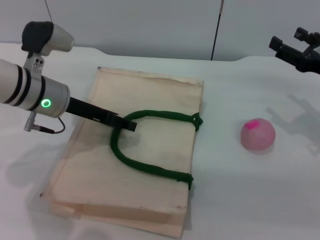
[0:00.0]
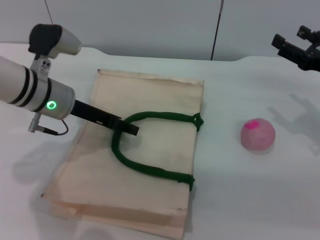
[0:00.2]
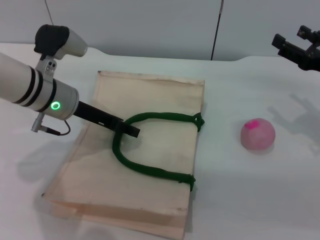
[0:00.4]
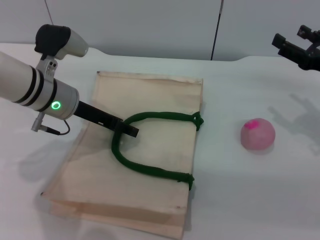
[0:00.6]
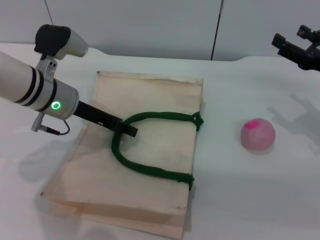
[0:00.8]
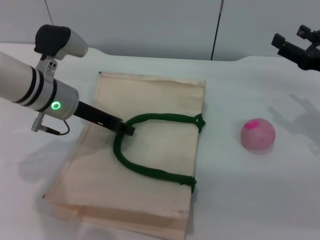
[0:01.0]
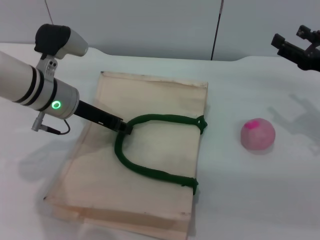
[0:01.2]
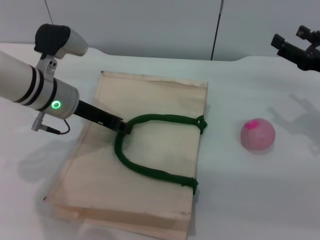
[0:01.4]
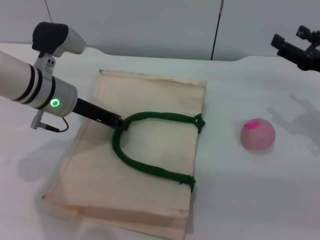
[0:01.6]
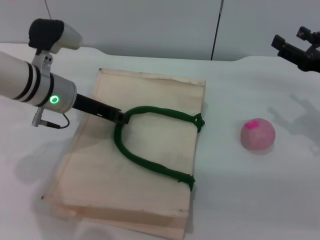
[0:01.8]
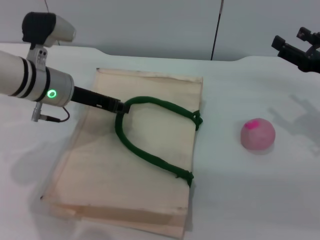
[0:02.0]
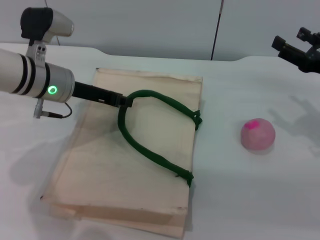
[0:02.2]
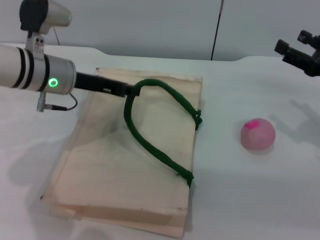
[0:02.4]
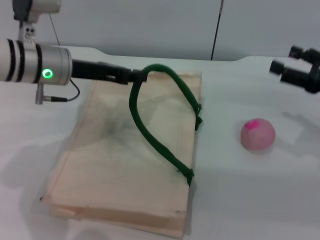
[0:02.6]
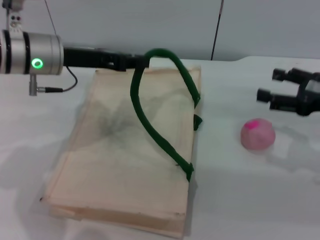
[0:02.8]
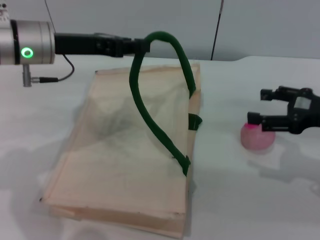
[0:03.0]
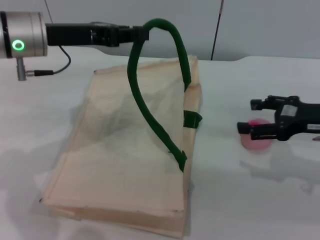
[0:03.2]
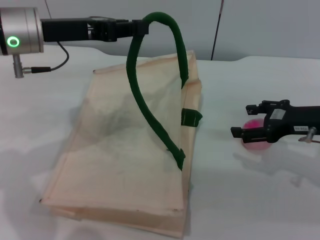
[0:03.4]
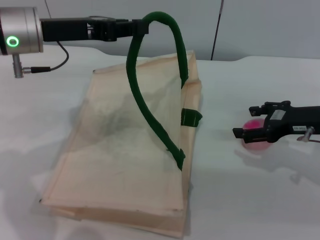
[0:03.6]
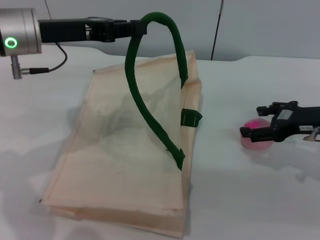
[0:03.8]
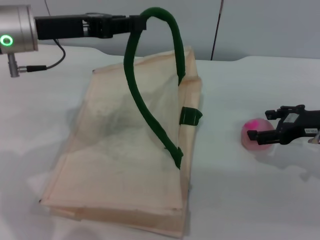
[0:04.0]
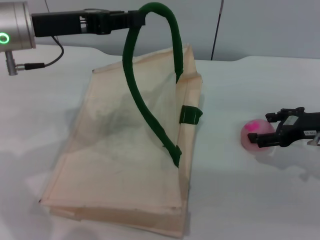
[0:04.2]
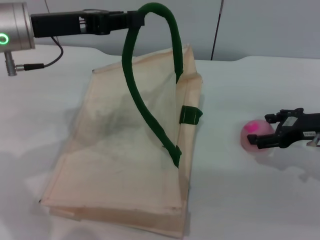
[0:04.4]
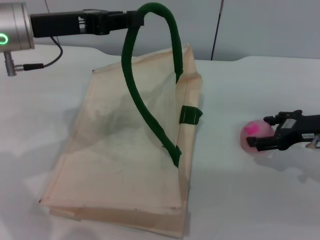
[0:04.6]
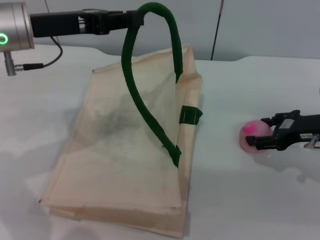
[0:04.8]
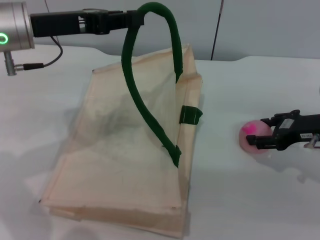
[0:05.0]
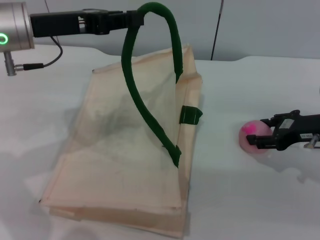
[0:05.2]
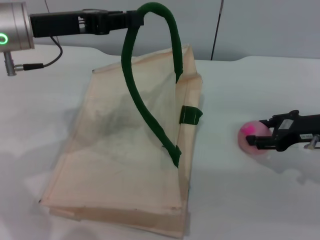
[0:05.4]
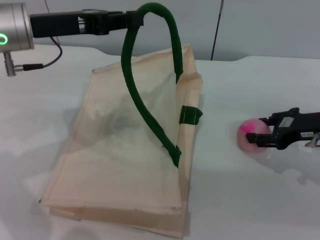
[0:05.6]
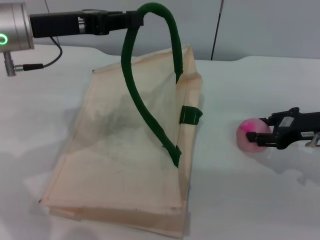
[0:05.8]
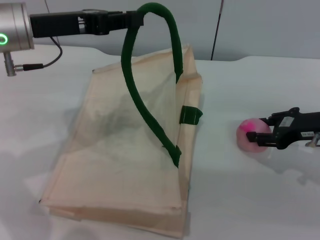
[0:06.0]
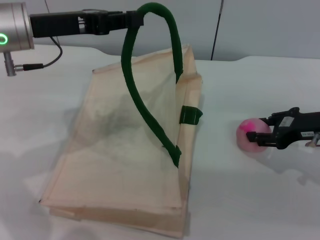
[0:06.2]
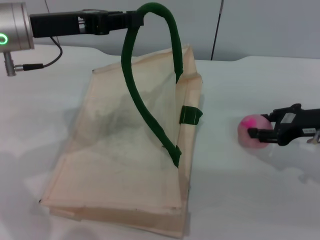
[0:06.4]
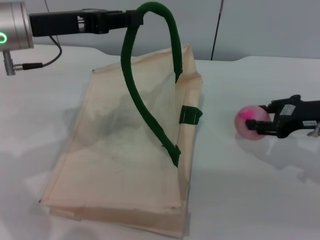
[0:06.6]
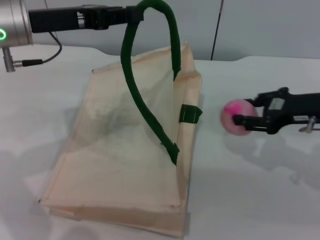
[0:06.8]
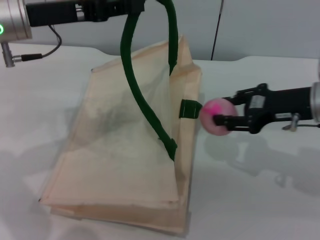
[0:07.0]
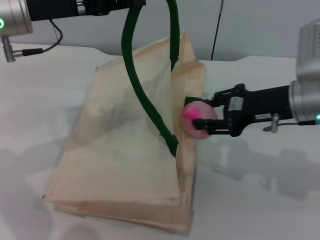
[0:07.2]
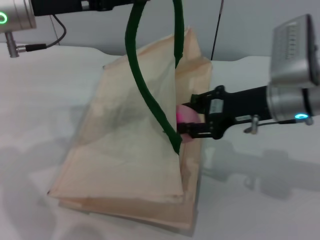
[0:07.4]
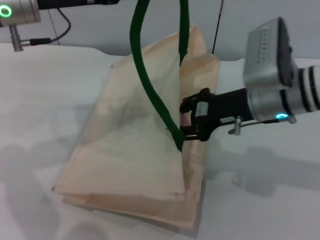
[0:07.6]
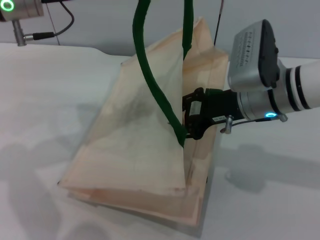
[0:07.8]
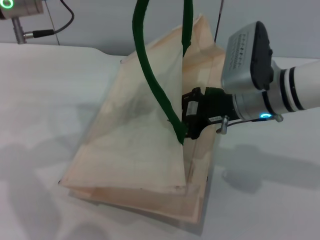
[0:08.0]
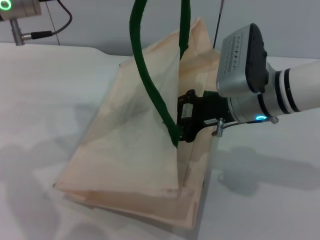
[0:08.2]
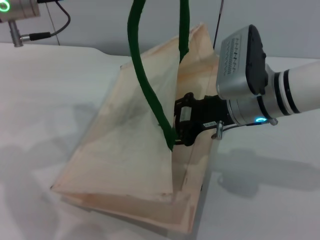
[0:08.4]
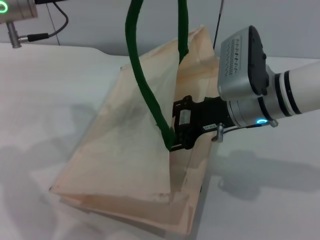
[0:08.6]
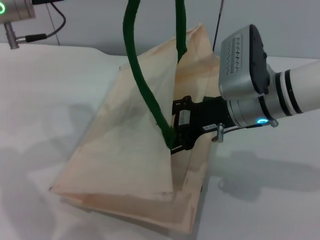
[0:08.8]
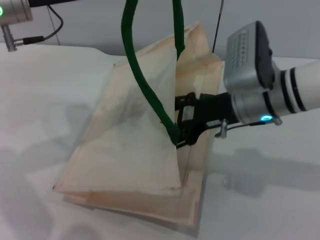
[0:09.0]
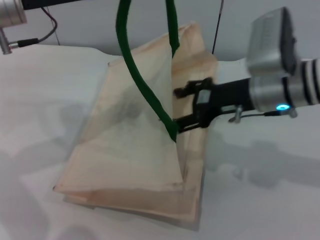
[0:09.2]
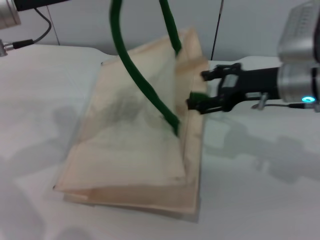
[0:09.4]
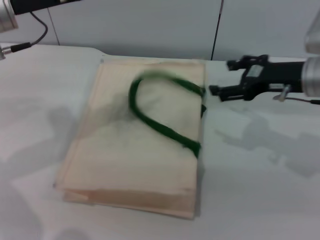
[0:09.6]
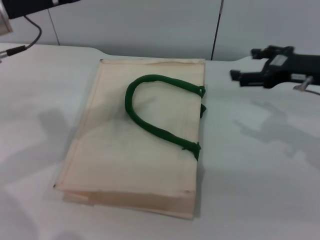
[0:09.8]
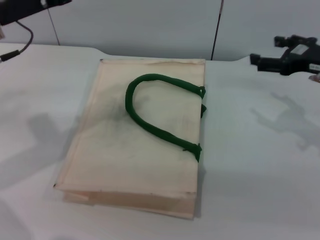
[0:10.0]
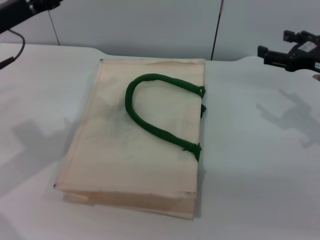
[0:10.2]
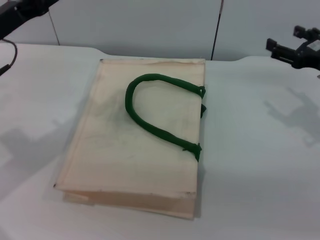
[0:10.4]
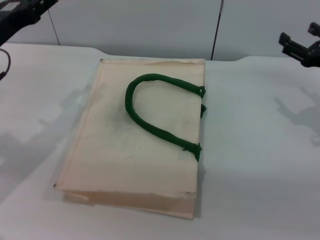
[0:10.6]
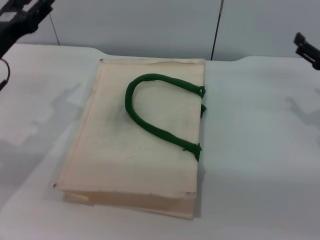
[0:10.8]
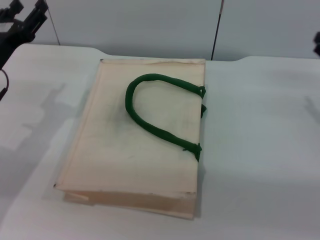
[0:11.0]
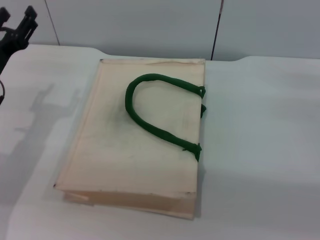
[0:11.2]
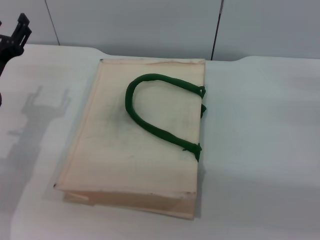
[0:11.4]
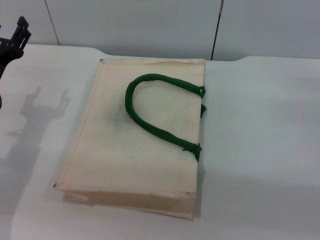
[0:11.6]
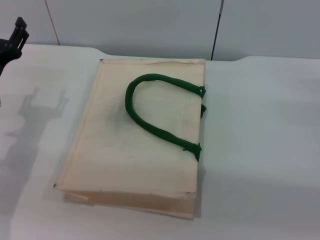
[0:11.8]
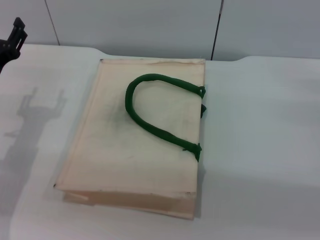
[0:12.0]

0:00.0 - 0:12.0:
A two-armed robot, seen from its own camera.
Task of the whole recording: pick up the peach from the table and place it in the white handbag.
Step, 0:00.0 - 0:02.4: Lift the woven bag with the left gripper to open it.
Step, 0:02.6 - 0:06.8: Pick up the peach with the right gripper.
Step, 0:07.0 - 0:09.4: Place the peach into the woven bag with the right gripper.
Step, 0:09.6 - 0:10.8: Lower the woven bag with the left gripper to close it.
0:00.0 - 0:01.6: The left gripper closes up.
0:01.6 - 0:03.0: The left gripper is displaced upward by approximately 10 cm.
0:04.4 - 0:06.0: The right gripper closes its fingers.
0:06.0 - 0:07.6: The right gripper goes roughly 15 cm to the left.
0:07.6 - 0:09.0: The right gripper opens up.
0:09.0 - 0:10.4: The left gripper is displaced downward and to the left by roughly 10 cm, and opens its fingers. The right gripper travels to the right by roughly 15 cm.
0:10.4 - 0:12.0: The right gripper is displaced downward by roughly 5 cm, while the left gripper goes about 10 cm downward.

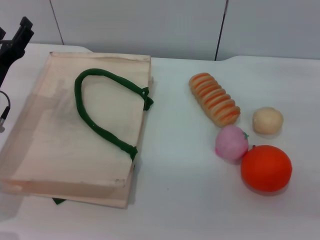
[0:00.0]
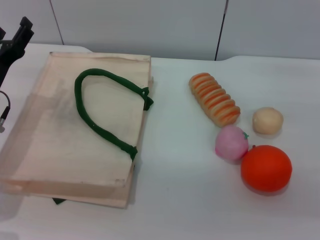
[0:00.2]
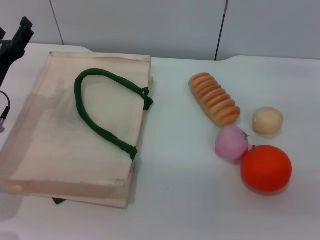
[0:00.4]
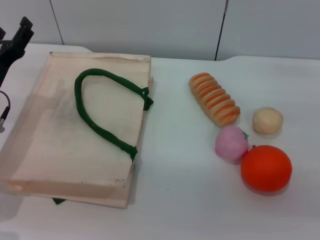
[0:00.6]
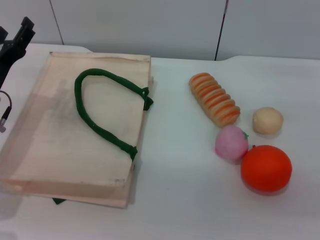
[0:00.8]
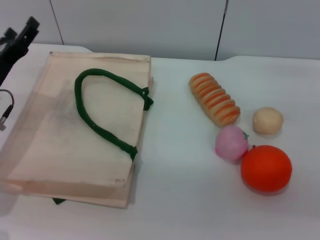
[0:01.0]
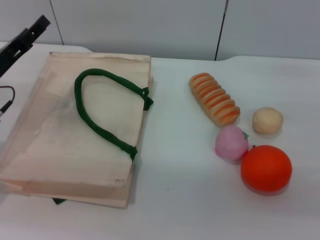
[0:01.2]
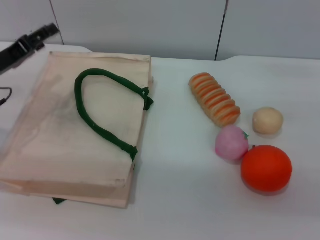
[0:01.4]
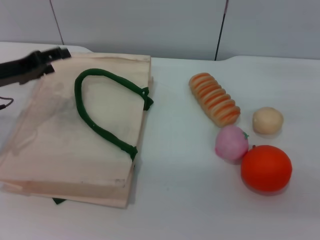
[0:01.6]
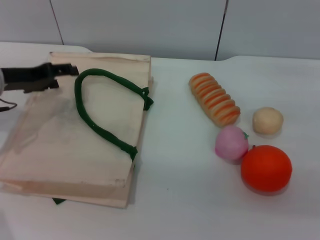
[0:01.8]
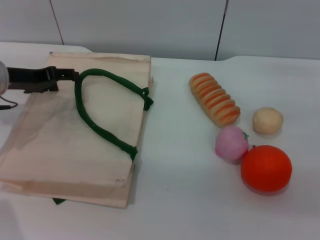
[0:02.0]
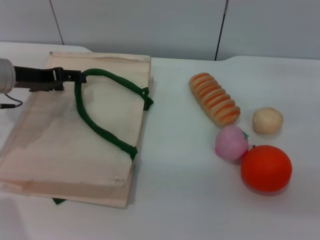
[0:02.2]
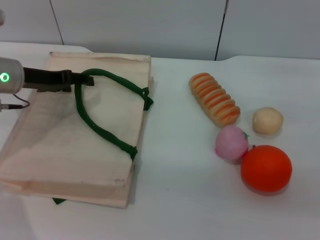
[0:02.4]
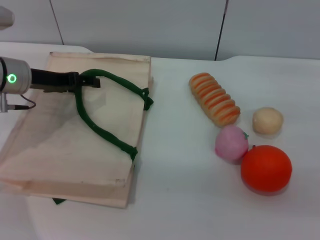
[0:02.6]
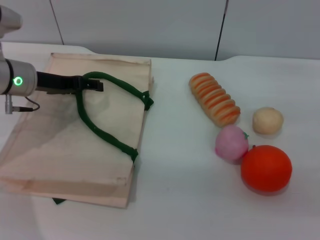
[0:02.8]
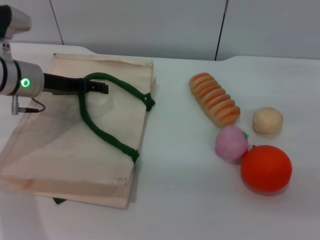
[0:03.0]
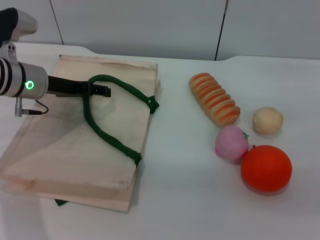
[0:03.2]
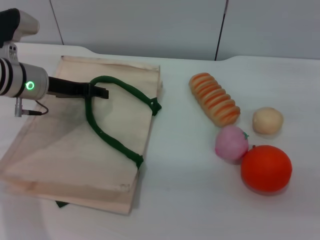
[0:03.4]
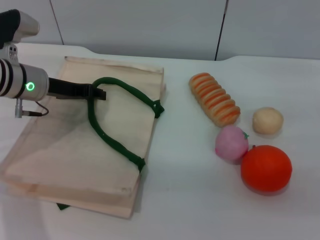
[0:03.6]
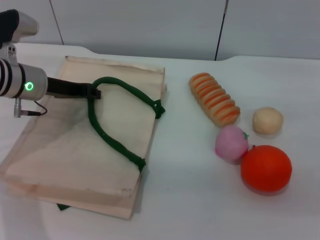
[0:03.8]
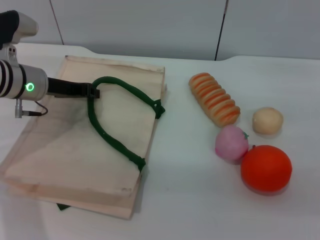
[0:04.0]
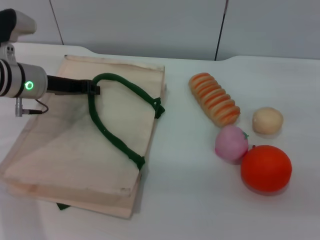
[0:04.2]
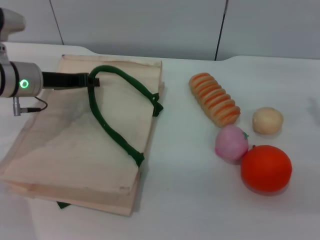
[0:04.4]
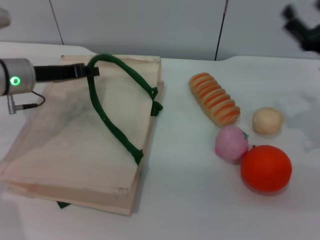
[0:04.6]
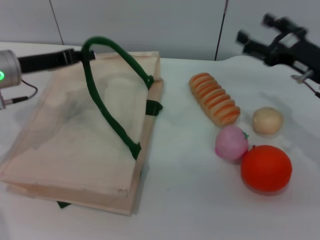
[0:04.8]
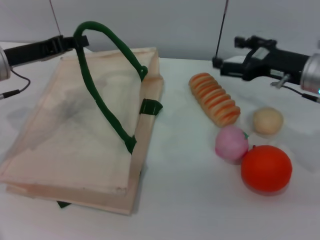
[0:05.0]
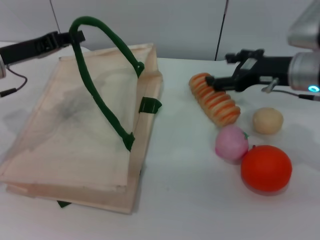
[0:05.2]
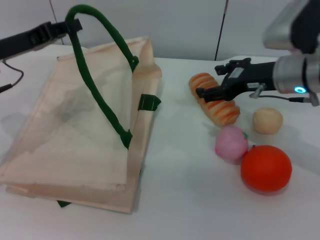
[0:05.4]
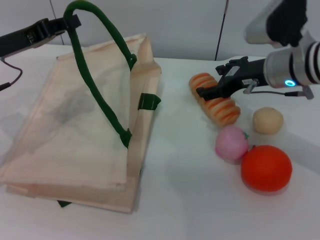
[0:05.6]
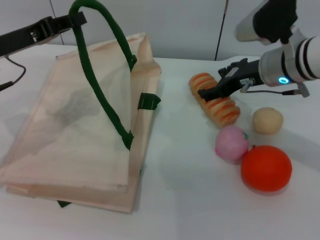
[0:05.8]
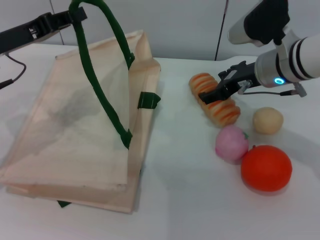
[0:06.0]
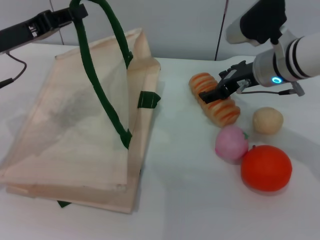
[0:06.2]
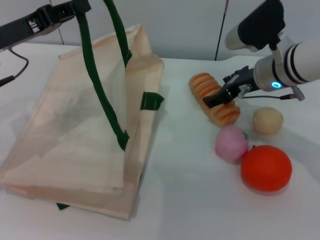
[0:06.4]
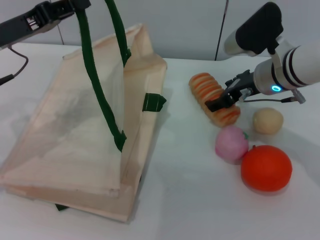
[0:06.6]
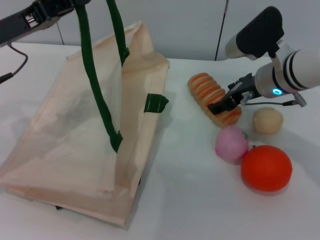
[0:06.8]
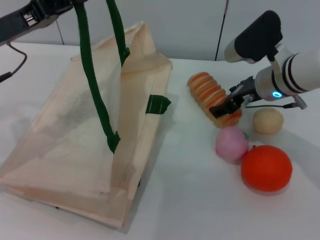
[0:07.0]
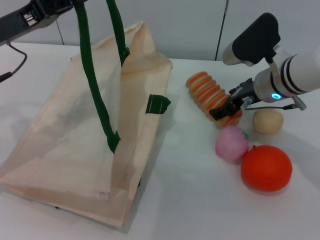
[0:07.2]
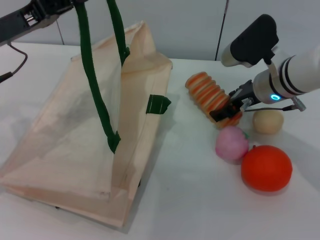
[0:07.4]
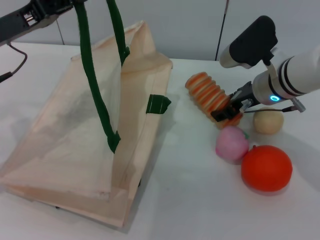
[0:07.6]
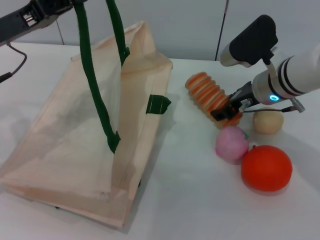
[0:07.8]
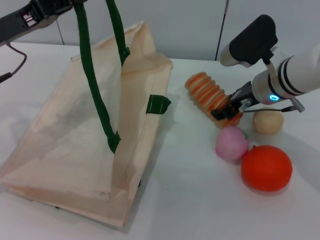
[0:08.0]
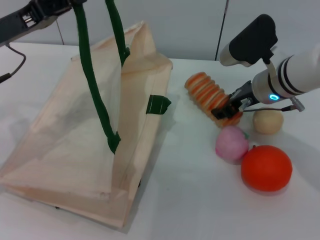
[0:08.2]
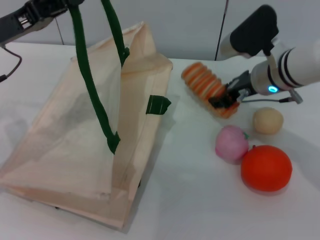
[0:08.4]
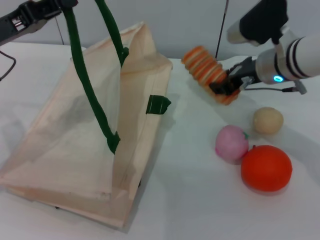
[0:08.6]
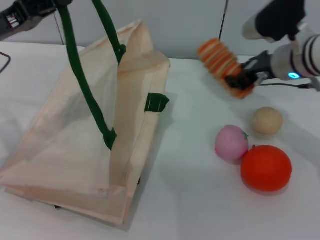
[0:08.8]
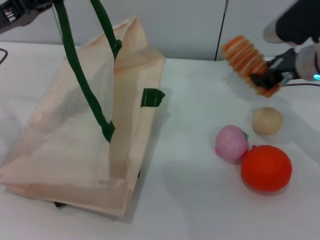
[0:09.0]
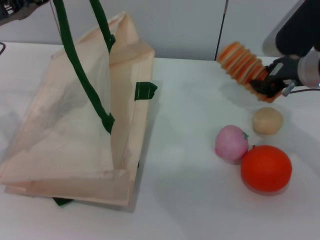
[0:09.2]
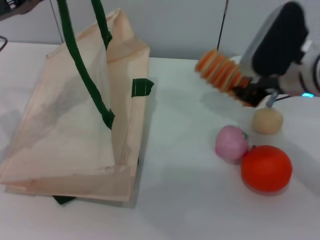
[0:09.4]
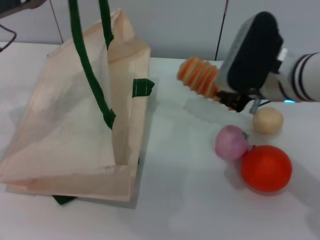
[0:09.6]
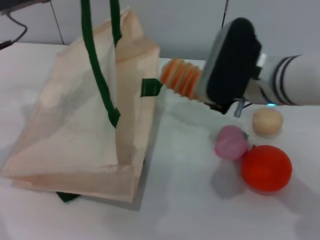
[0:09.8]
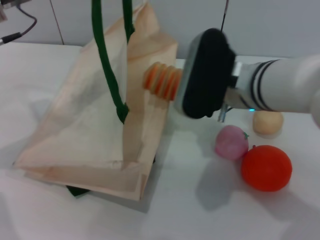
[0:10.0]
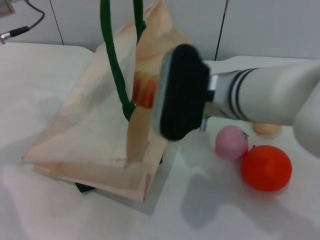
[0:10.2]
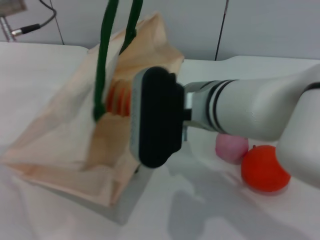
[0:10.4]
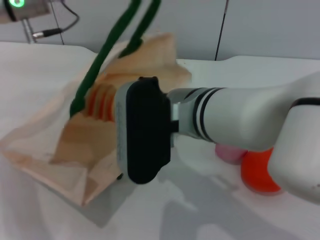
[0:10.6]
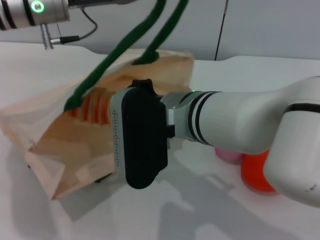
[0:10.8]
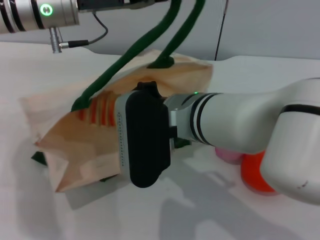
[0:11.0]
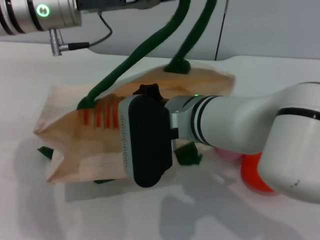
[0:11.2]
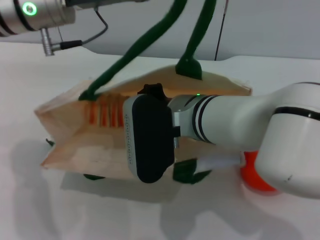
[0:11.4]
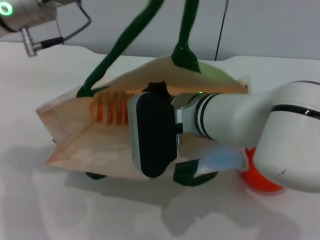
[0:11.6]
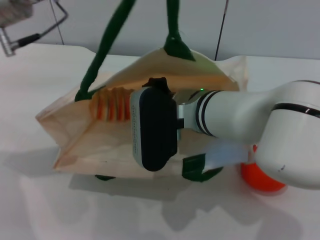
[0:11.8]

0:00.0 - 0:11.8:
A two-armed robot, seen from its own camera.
Task of the whole recording: pick up the bread and egg yolk pastry from the table and place it in the white handbag.
Step, 0:00.0 - 0:04.4: Lift the woven bag with the left gripper to open it.
Step, 0:04.6 - 0:09.4: Pick up the bread with the right gripper.
0:00.0 - 0:01.4: The left gripper changes place by about 5 cm.
0:01.4 - 0:03.0: The left gripper travels to the right and forward by approximately 10 cm.
0:03.0 - 0:04.4: The left gripper closes up.
0:04.4 - 0:06.0: The right gripper moves to the left and forward, approximately 15 cm; the left gripper ends up roughly 5 cm from where it was.
0:07.4 - 0:08.8: The right gripper closes up.
0:08.8 - 0:10.4: The left gripper goes roughly 10 cm forward, to the right and upward, while the right gripper travels to the left and backward by about 20 cm.
0:10.4 - 0:11.8: The left gripper changes place by approximately 5 cm. The right gripper moves about 5 cm.
